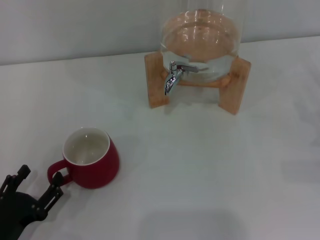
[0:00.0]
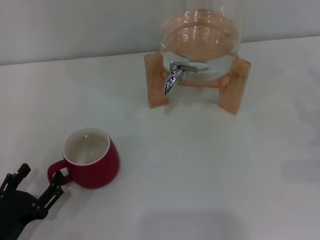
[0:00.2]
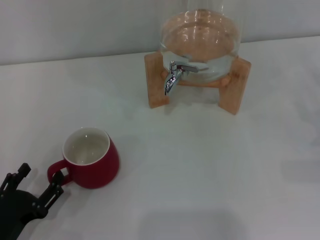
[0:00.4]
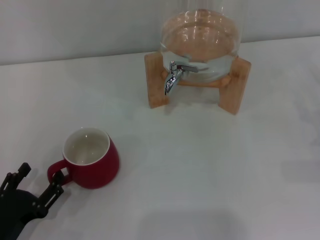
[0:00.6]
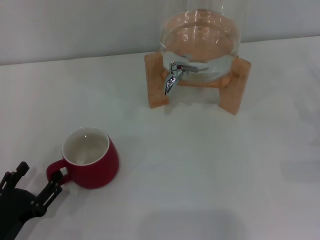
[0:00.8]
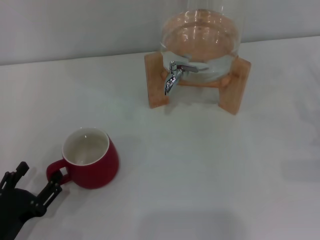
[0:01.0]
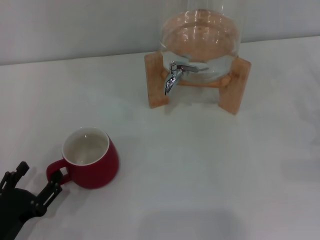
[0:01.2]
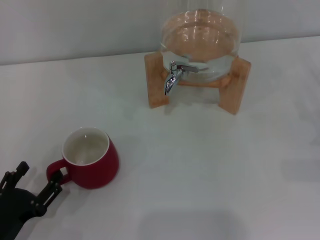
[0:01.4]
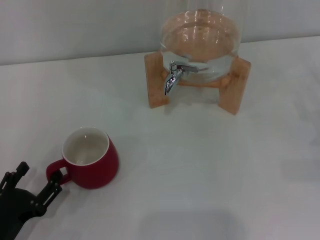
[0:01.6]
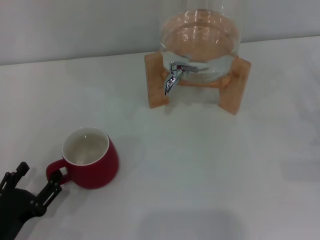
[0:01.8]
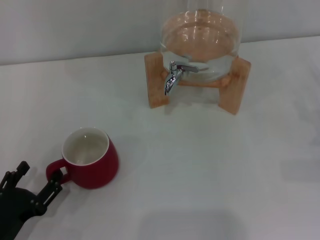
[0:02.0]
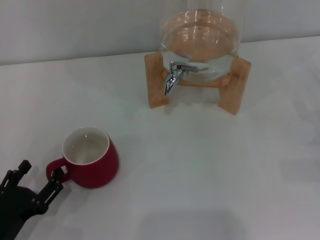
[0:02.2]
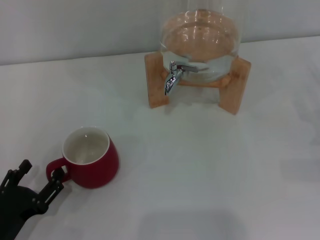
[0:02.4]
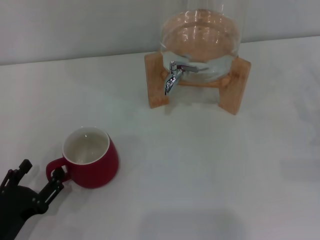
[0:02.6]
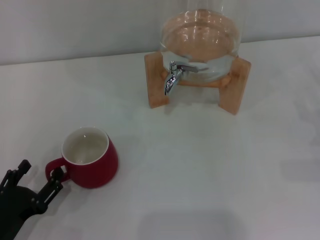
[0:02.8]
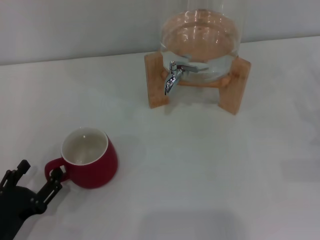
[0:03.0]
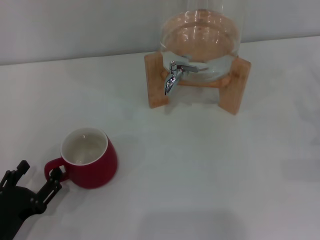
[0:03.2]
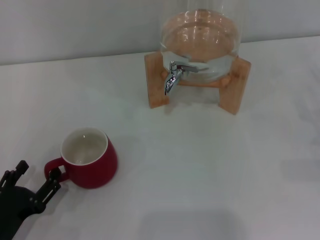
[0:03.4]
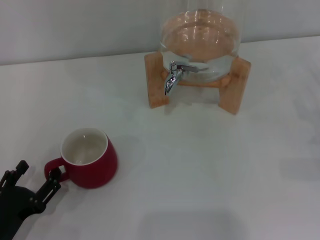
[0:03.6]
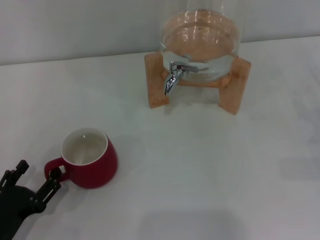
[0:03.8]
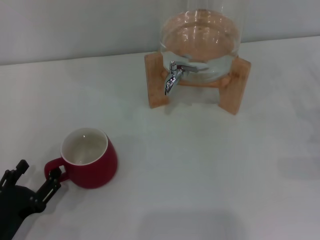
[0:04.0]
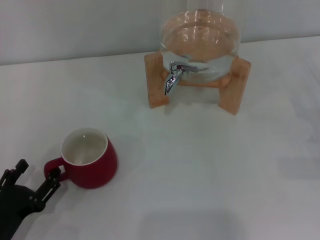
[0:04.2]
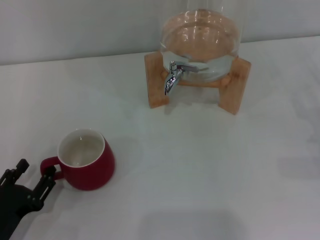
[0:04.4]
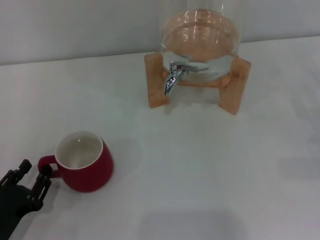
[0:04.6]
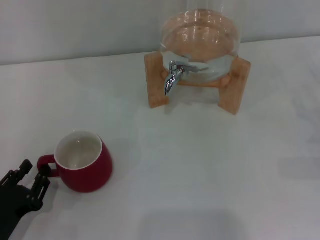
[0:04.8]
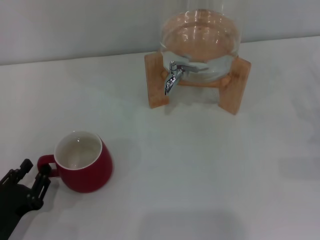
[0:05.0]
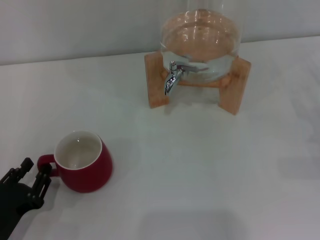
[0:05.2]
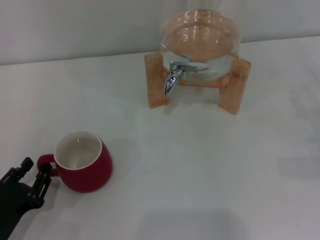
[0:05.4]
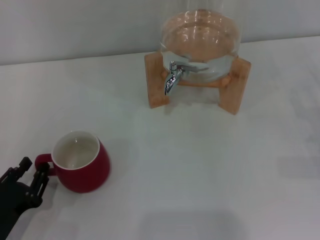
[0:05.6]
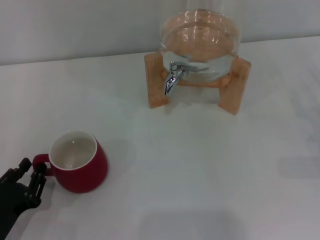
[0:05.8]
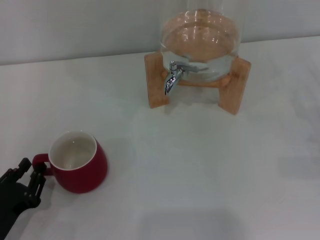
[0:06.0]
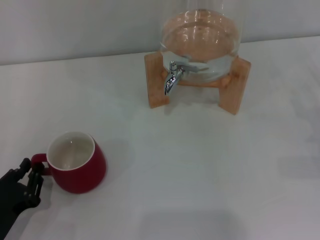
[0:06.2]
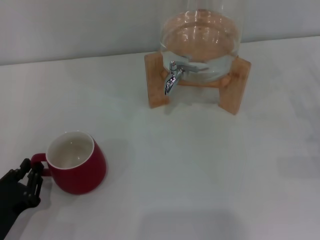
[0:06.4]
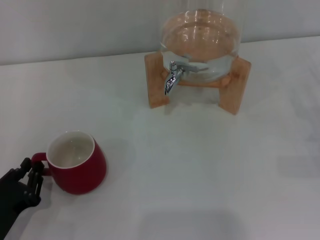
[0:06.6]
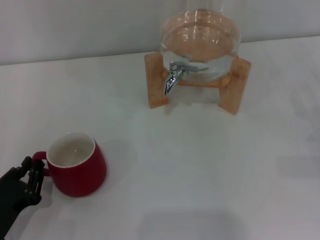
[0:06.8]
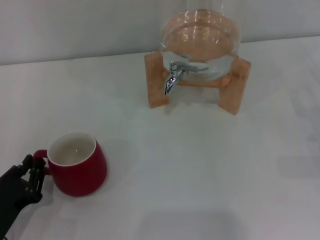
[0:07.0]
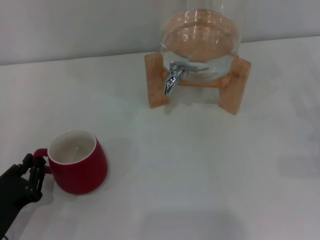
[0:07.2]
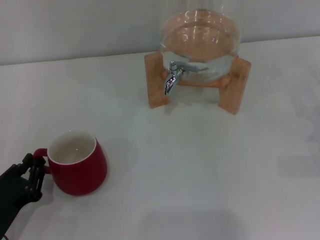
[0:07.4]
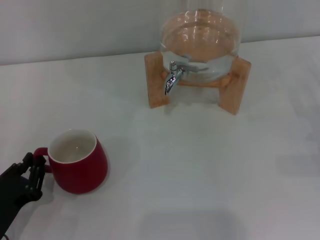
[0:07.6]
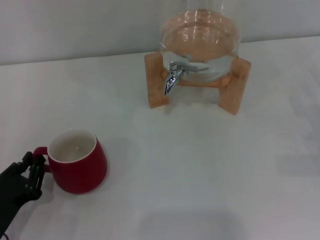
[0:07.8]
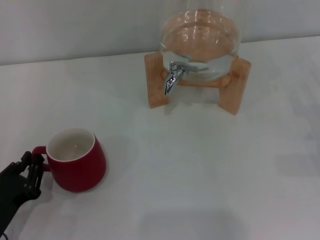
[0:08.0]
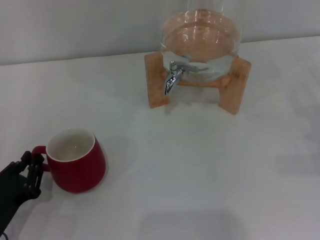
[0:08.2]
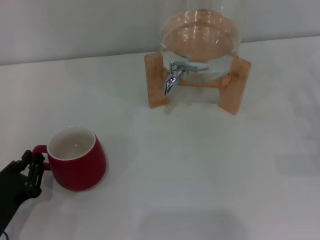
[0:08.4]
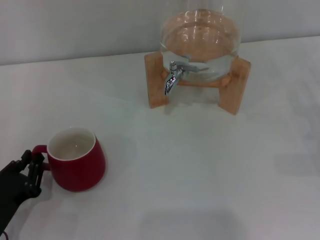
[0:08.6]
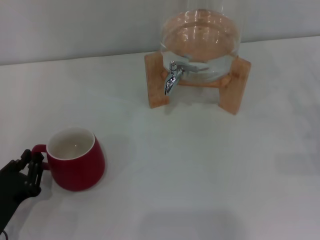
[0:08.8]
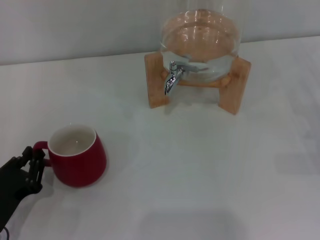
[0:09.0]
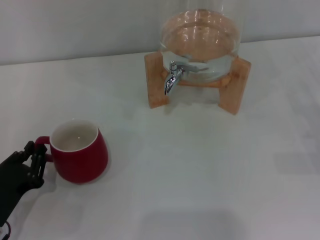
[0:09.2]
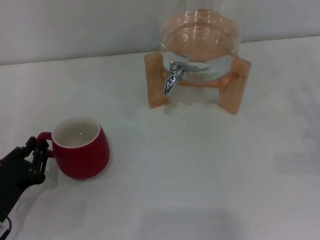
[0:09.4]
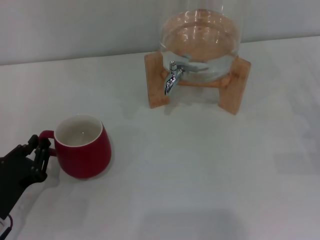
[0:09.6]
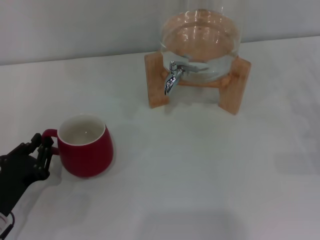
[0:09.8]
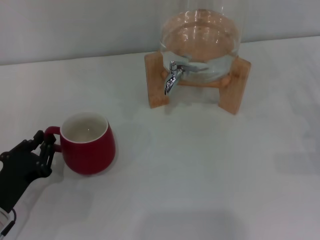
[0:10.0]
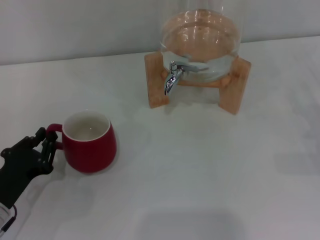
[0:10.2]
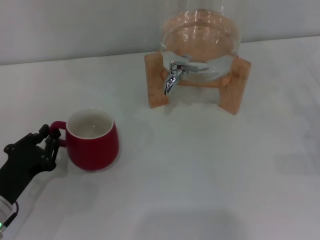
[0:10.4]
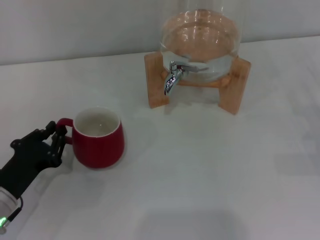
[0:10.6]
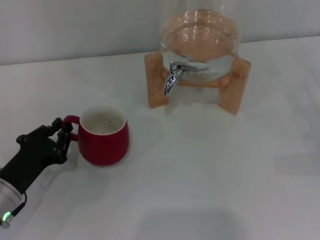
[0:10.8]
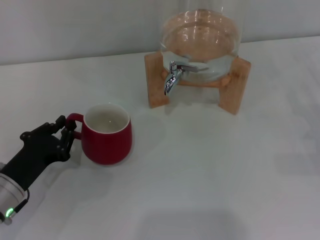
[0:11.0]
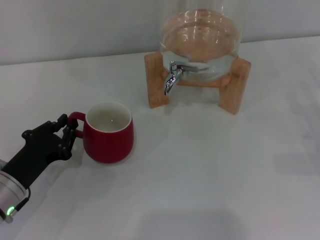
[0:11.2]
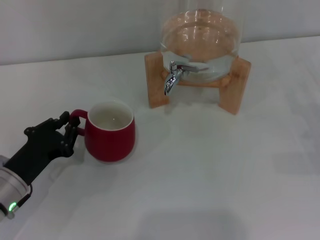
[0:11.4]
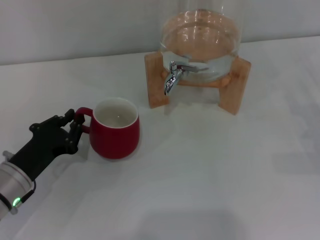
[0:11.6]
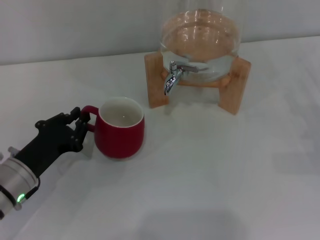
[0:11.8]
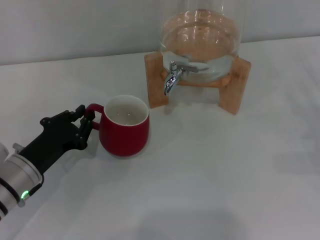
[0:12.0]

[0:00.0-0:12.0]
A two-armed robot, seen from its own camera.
Task of the whole recording: the left gripper pick up the red cup and place it horizontally under the faucet, the right gripper turn on the faucet to fill the cup, and then turn off the faucet.
0:00.0 to 0:04.4: Both grippers stay about where they are.
0:04.4 to 0:06.0: The left gripper closes.
0:06.0 to 0:07.6: The two grippers keep their place.
0:07.6 to 0:09.0: Neither gripper changes place.
0:09.0 to 0:10.4: The grippers make only small movements.
0:10.4 to 0:12.0: The left gripper moves roughly 5 cm.

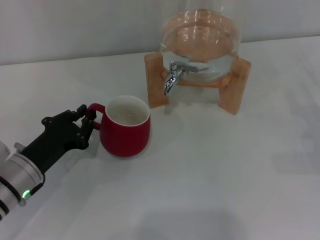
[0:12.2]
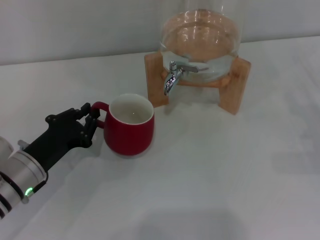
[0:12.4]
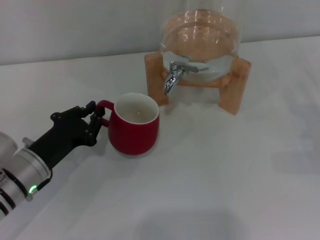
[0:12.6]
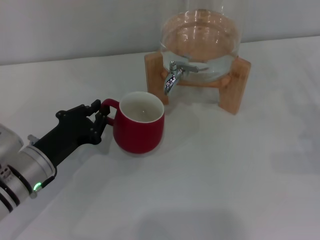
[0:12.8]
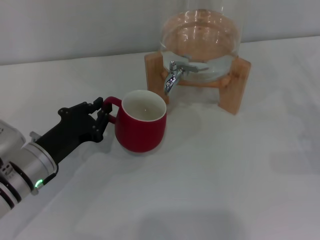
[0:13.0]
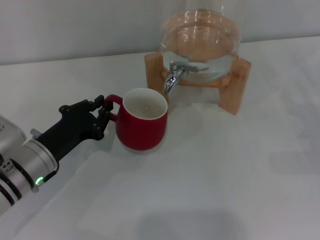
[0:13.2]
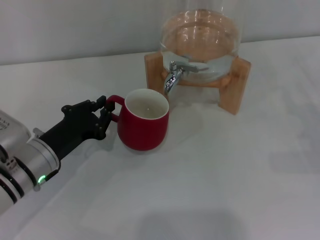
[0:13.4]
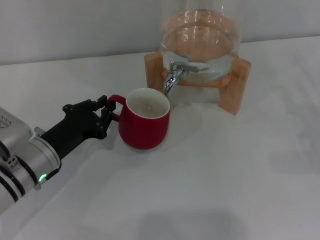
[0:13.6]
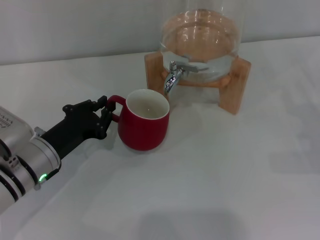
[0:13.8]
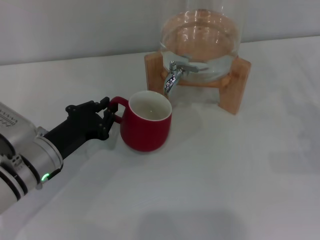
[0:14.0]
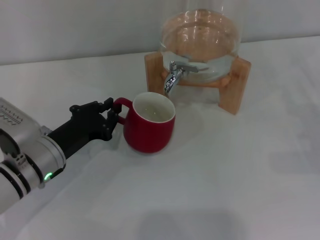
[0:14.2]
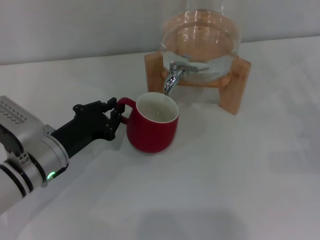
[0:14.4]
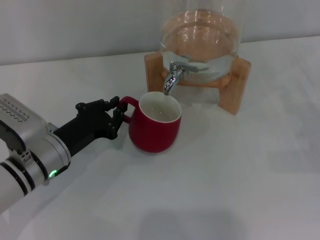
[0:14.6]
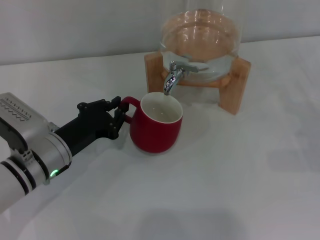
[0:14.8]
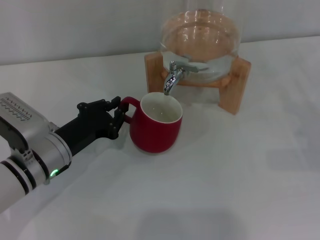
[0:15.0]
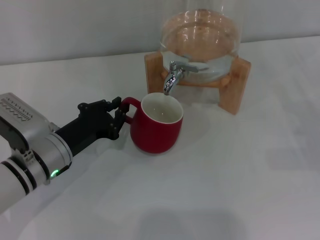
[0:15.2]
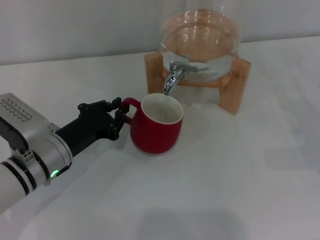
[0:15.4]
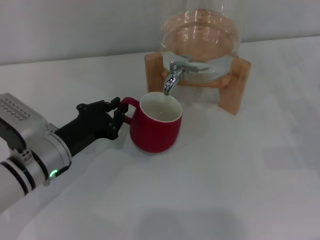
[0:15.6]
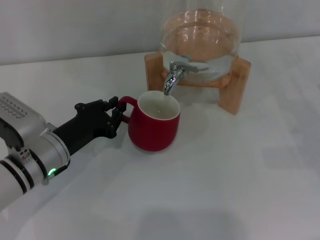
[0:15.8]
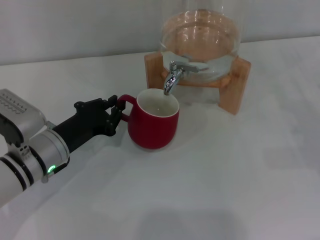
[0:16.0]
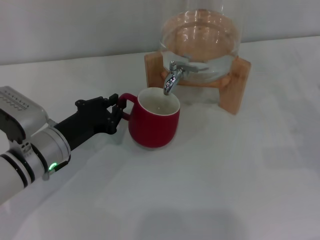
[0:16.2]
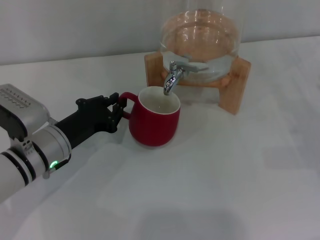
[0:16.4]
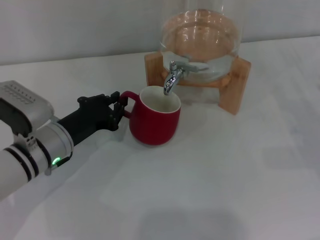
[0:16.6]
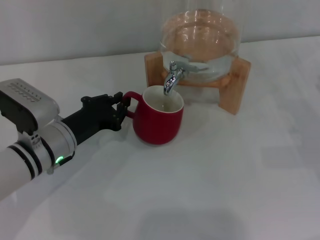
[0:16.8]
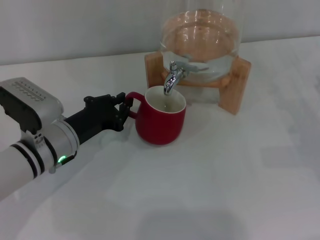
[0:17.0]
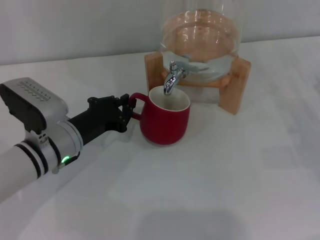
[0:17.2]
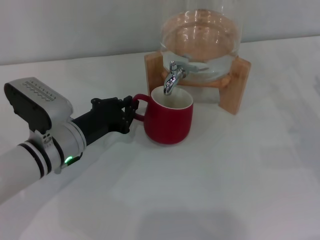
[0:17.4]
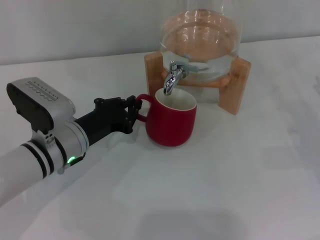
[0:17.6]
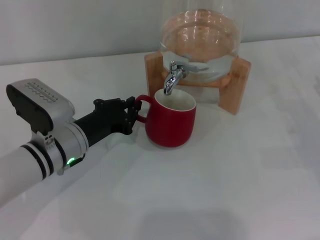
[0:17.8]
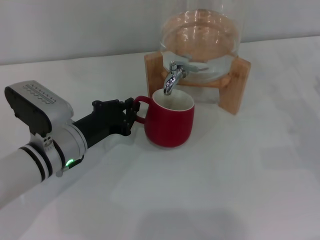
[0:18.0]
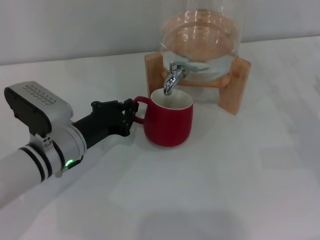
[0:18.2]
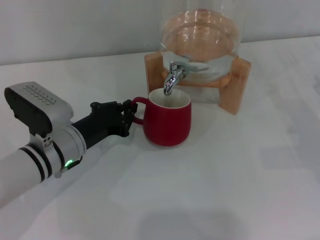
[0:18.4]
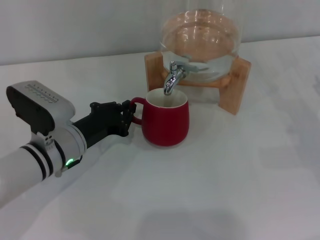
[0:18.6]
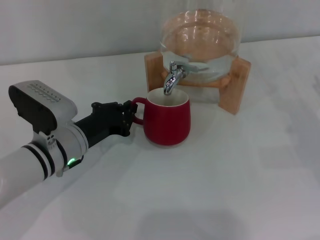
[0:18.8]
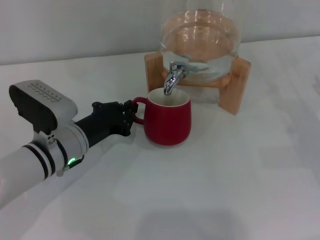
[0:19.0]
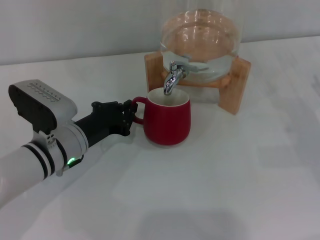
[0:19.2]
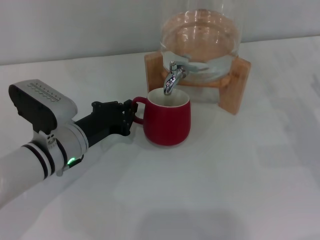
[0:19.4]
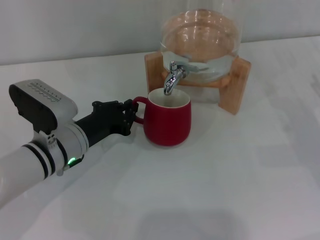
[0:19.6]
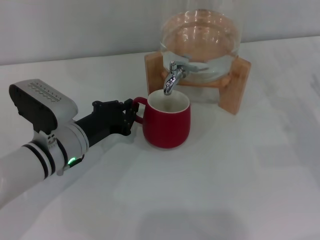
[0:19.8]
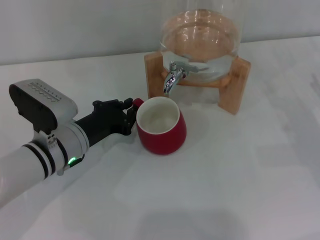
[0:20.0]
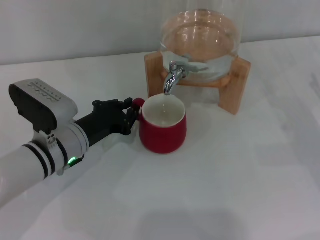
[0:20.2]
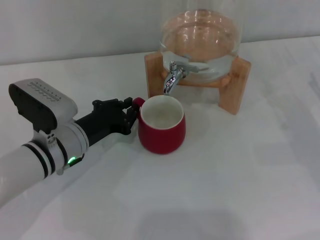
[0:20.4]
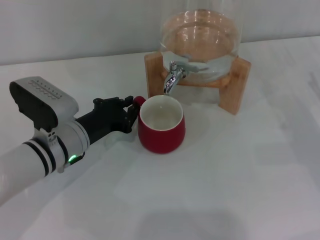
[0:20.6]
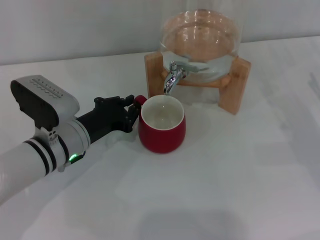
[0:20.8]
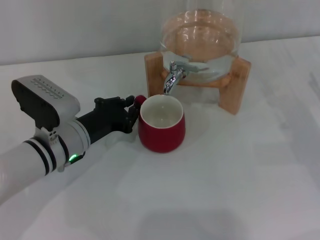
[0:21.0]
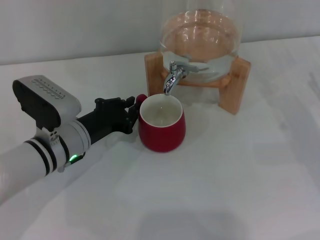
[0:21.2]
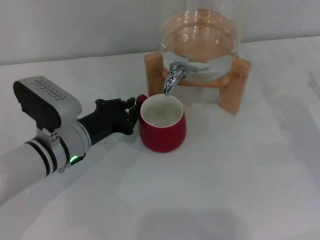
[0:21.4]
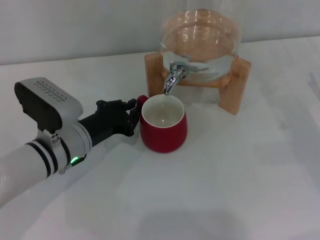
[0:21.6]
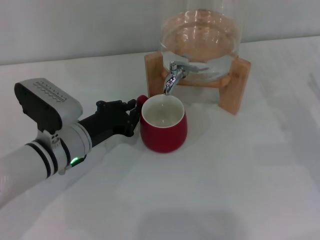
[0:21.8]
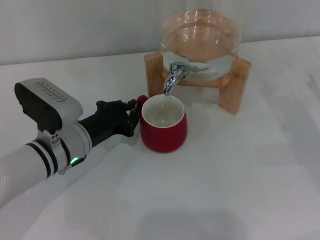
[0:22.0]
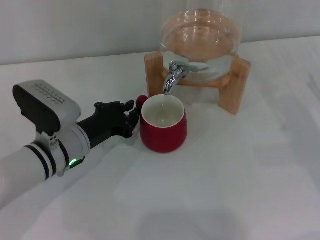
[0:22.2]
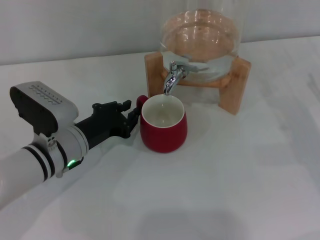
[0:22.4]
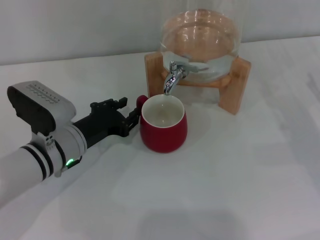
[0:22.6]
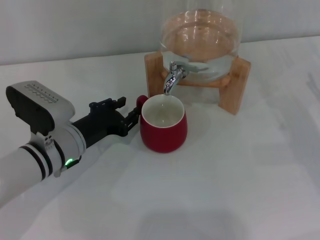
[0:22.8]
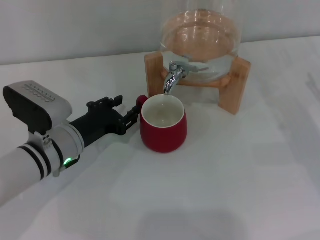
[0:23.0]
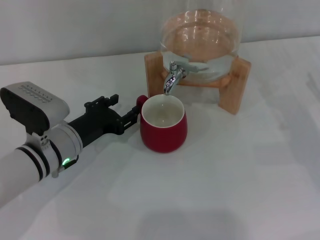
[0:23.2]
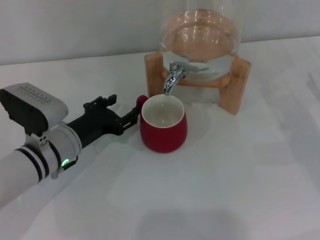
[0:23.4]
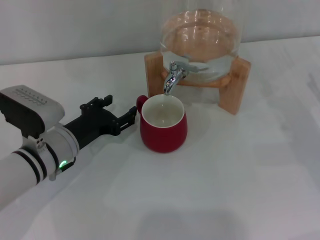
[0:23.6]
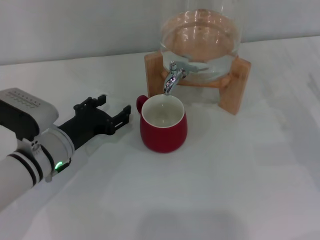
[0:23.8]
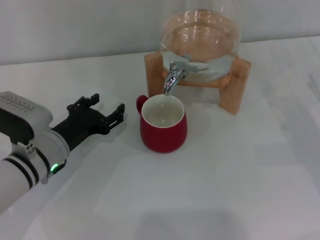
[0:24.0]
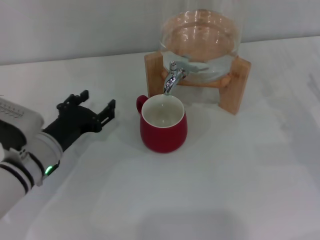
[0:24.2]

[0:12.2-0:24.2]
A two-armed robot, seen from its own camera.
Task of the whole recording: the left gripper pick up the red cup and place it horizontally under the faucet, the right gripper turn on the faucet to fill the cup, and then turn off the faucet.
Step, 0:12.2 to 0:24.2: Move the cup beneath the water dispenser nozzle with the left gripper.
0:12.2 to 0:15.2: The grippers stay close to where they were, moving slightly.
0:15.2 to 0:18.2: The grippers make only small movements.
0:18.2 to 0:22.6: The two grippers keep their place.
0:22.6 to 0:24.2: The left gripper opens its fingers.
